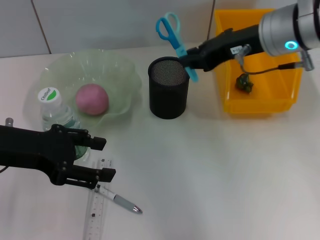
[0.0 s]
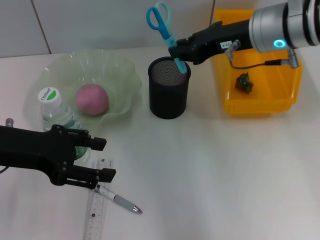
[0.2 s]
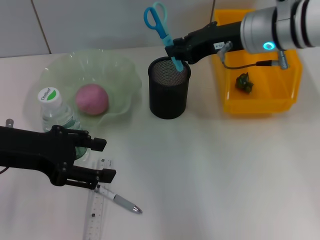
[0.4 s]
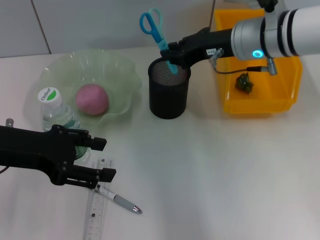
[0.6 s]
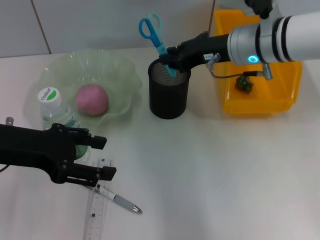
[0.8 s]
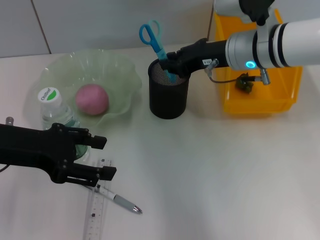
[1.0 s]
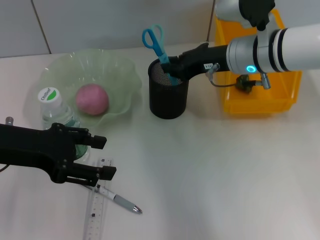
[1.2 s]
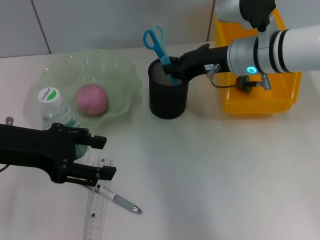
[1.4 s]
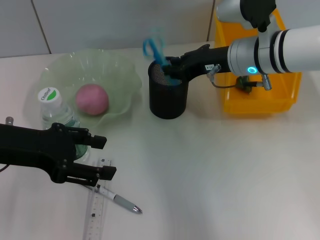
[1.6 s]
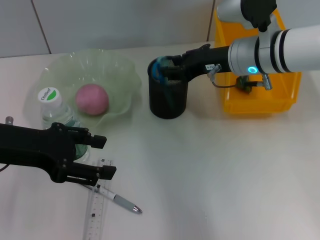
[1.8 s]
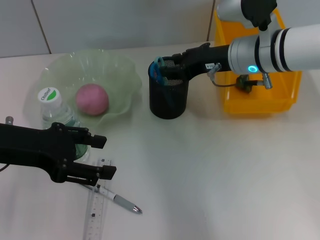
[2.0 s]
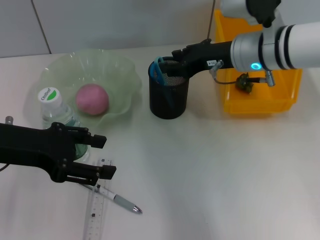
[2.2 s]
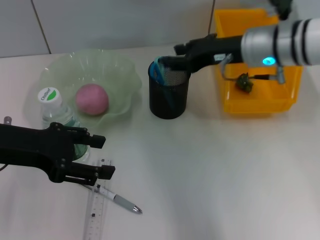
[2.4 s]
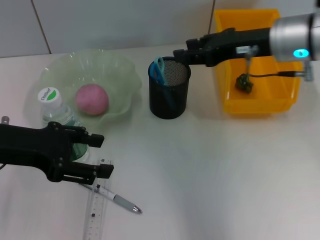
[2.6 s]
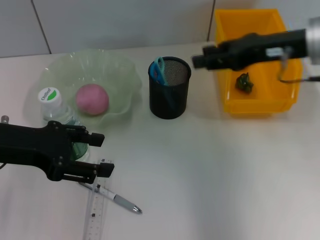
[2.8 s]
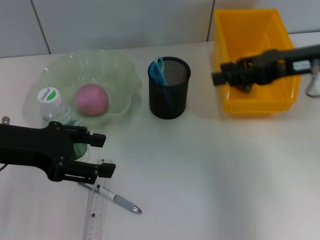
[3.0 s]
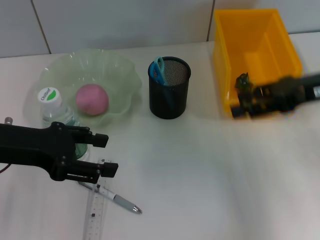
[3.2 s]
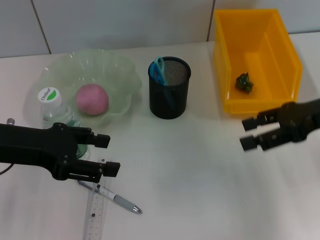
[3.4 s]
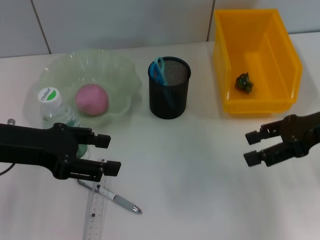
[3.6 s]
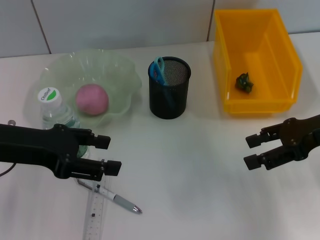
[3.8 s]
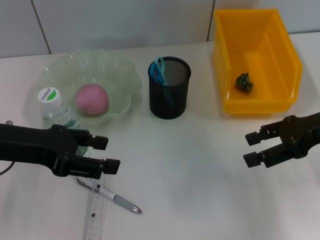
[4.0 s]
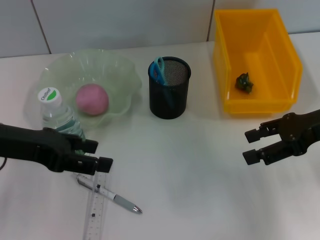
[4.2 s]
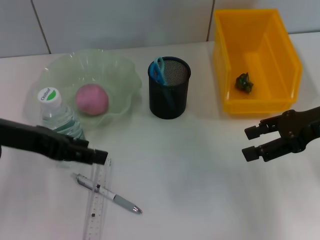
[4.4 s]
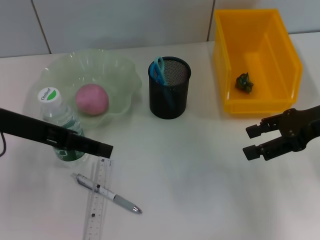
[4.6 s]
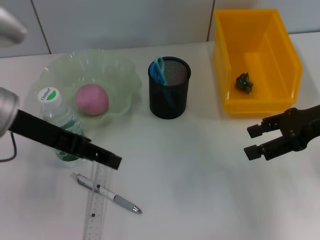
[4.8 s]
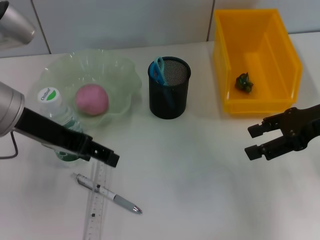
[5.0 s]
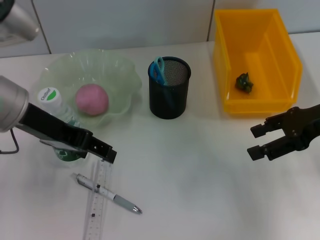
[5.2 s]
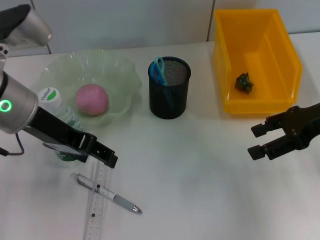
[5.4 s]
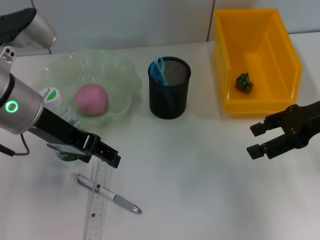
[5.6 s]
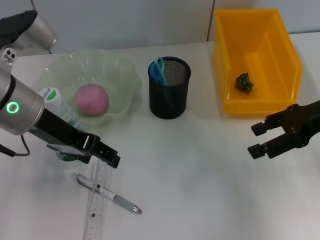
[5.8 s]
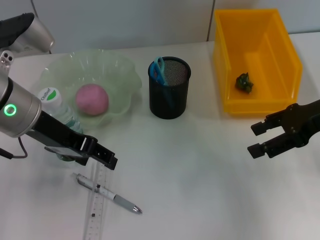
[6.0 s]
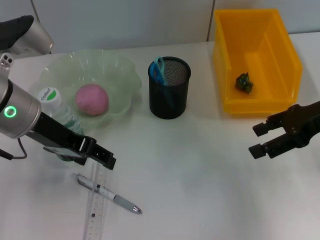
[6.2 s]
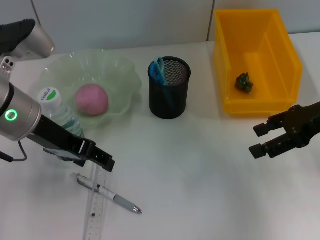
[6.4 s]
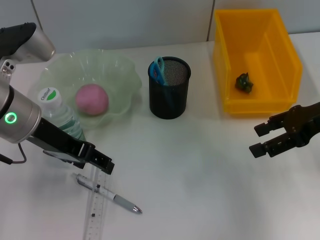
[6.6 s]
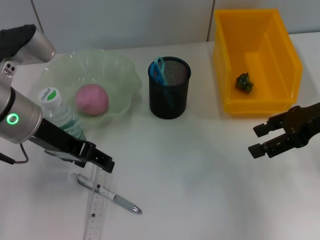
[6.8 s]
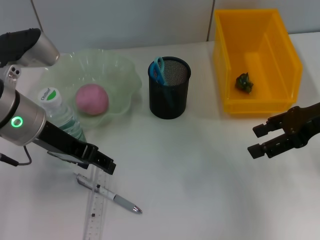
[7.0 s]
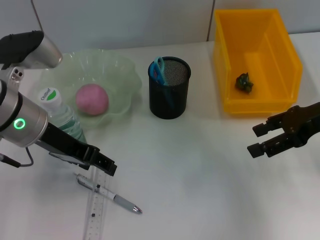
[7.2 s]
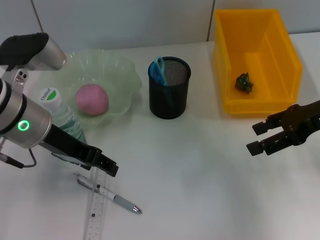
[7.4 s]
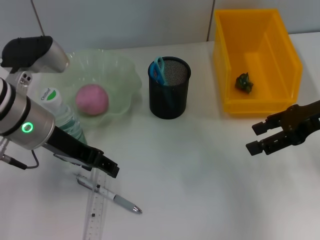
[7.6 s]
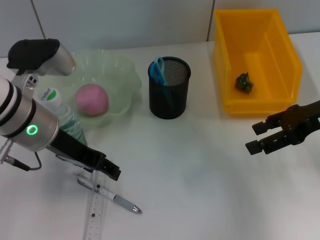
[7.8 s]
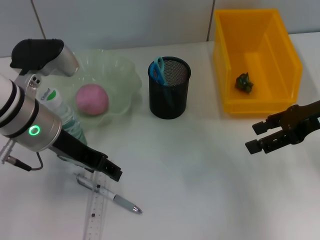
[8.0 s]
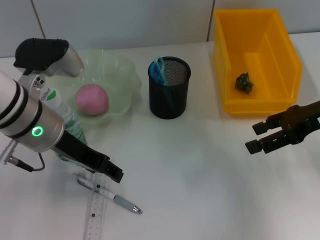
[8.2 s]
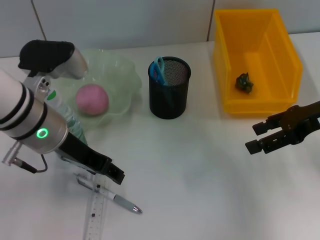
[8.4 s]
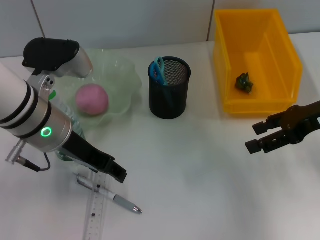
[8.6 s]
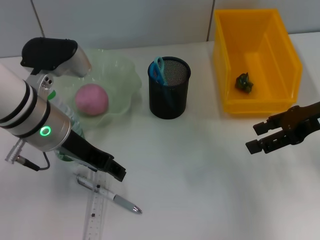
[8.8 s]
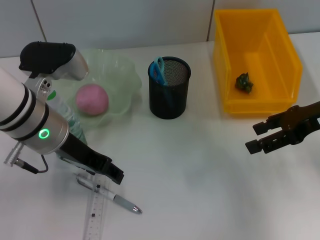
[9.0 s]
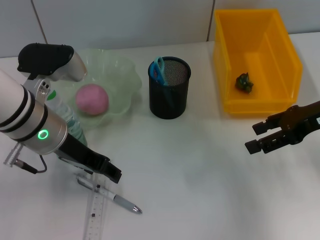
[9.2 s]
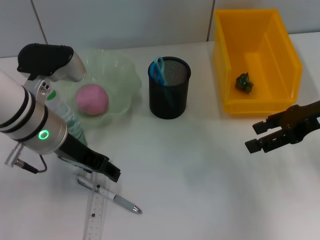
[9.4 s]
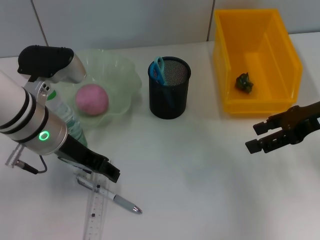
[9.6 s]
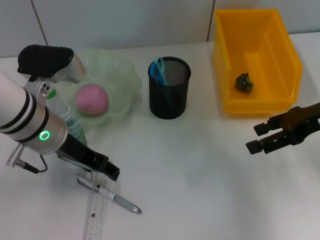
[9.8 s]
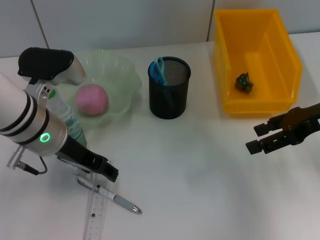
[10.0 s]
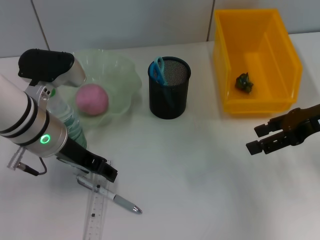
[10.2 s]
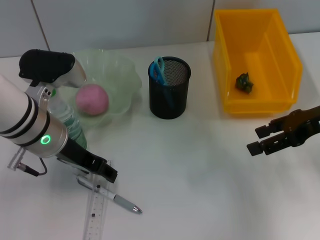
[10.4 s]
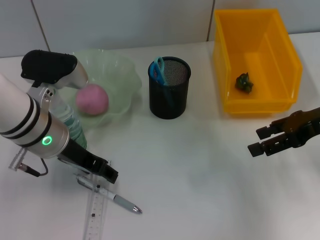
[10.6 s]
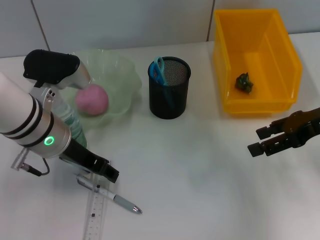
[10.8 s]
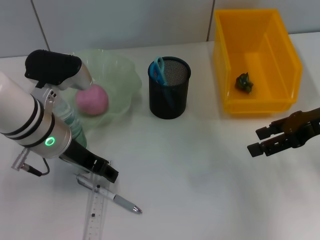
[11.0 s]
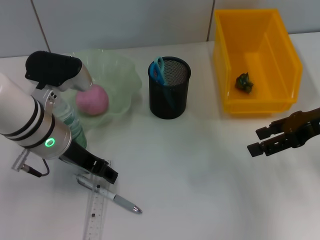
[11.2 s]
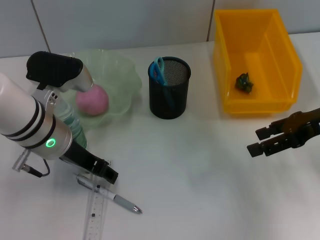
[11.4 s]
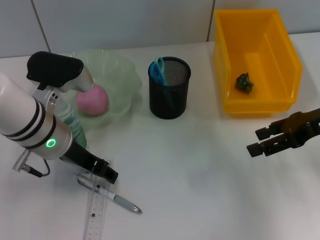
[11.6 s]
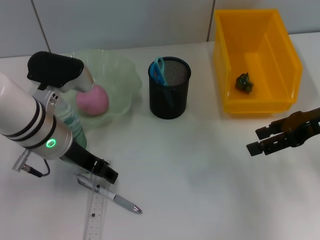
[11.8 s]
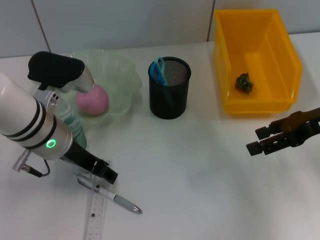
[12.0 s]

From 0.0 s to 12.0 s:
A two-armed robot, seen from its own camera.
From 0.0 s to 1.6 s: The right gripper goes about 5 cm downward.
From 1.6 s to 3.0 s: The right gripper goes roughly 15 cm to the right, backward and upward, and opens its fingers.
From 3.0 s to 4.4 s: The right gripper ends up about 5 cm from where it was, and opens.
From 4.4 s to 6.0 s: The left gripper is displaced to the right by roughly 5 cm.
From 6.0 s to 9.0 s: There are only small adjustments of the grippers.
From 9.0 s to 10.4 s: The grippers stay close to where they were, moving slightly.
From 10.4 s to 12.0 s: The two grippers keep their place.

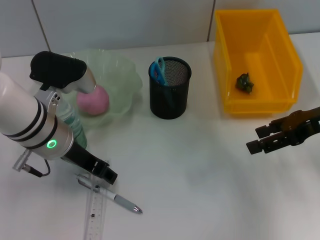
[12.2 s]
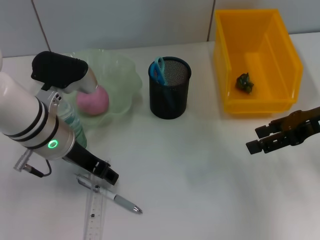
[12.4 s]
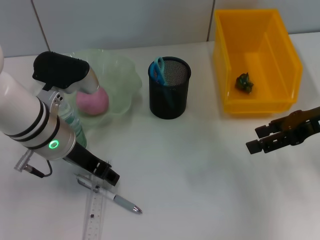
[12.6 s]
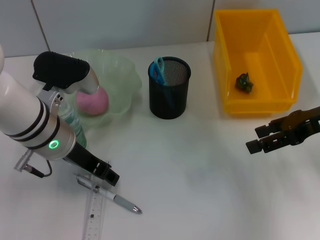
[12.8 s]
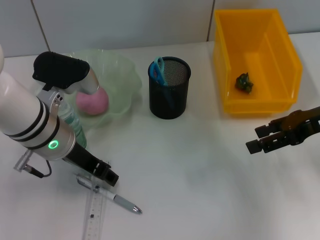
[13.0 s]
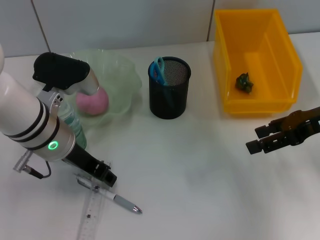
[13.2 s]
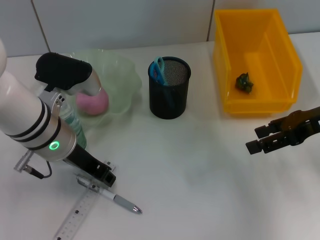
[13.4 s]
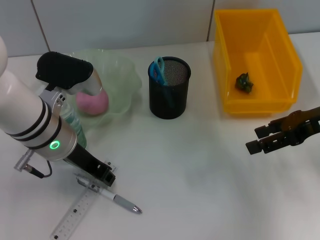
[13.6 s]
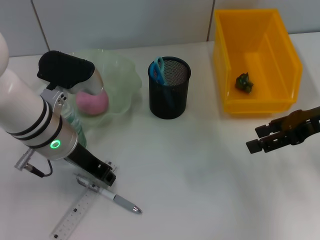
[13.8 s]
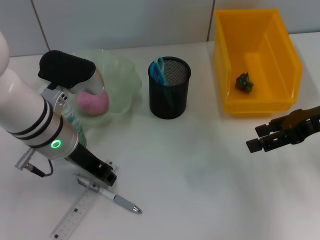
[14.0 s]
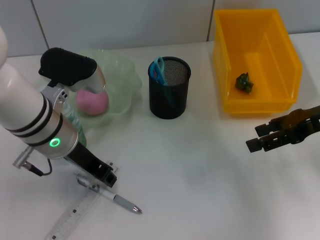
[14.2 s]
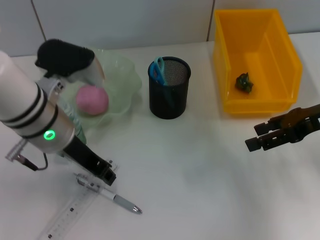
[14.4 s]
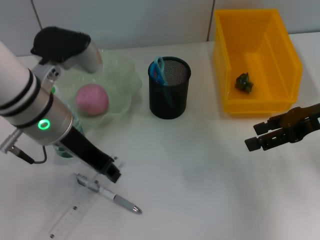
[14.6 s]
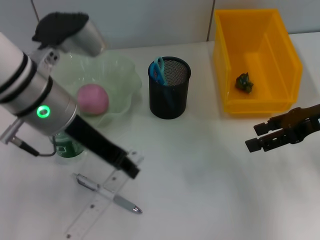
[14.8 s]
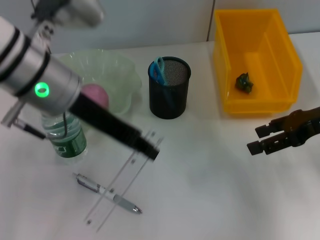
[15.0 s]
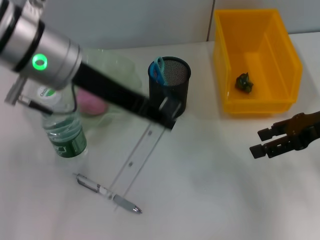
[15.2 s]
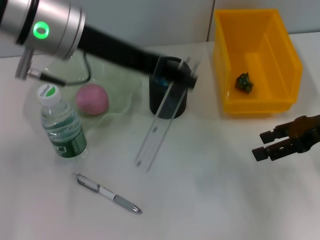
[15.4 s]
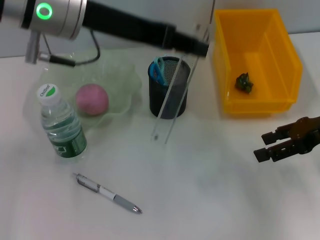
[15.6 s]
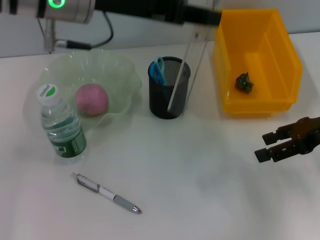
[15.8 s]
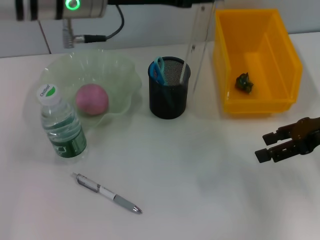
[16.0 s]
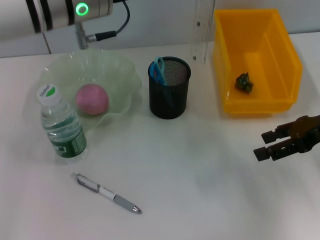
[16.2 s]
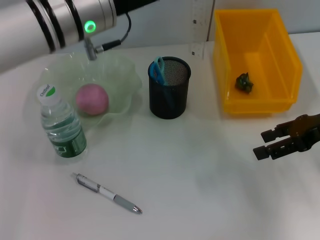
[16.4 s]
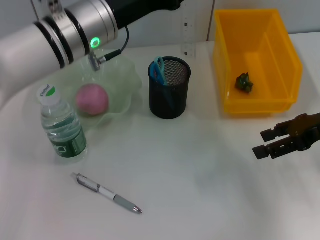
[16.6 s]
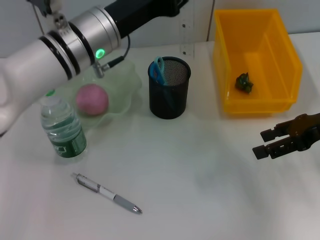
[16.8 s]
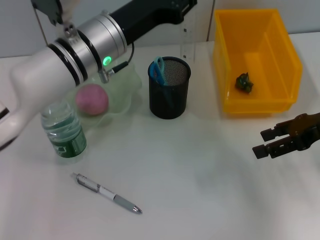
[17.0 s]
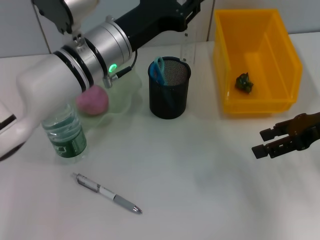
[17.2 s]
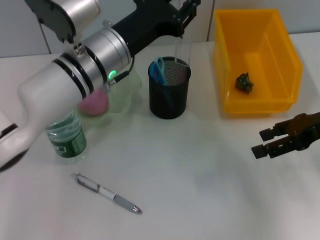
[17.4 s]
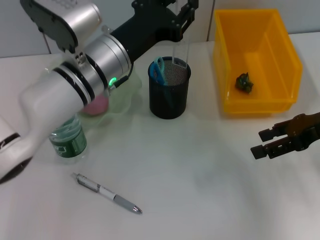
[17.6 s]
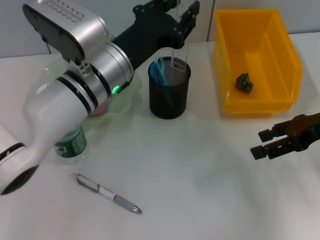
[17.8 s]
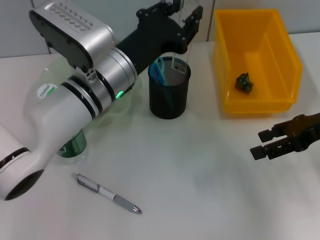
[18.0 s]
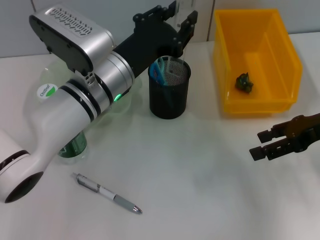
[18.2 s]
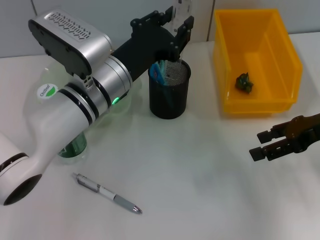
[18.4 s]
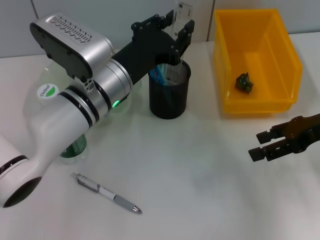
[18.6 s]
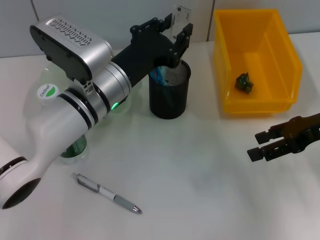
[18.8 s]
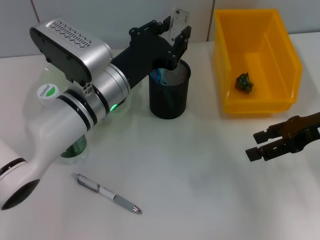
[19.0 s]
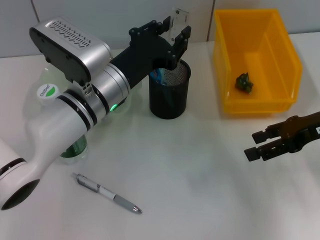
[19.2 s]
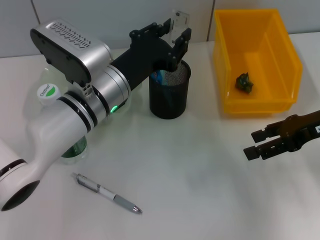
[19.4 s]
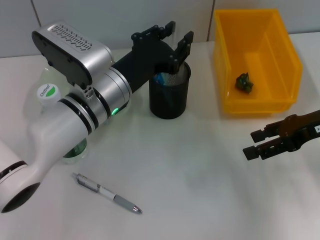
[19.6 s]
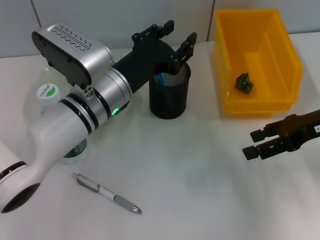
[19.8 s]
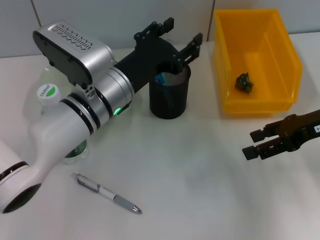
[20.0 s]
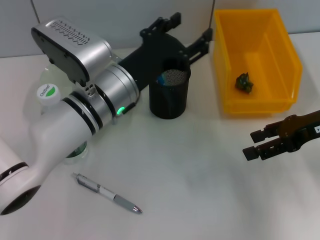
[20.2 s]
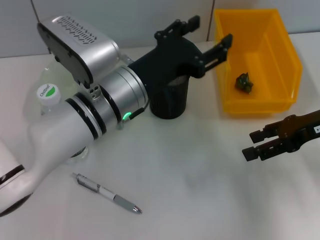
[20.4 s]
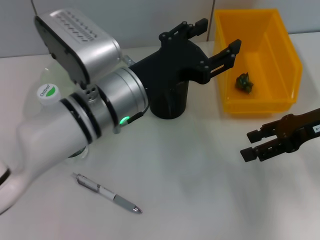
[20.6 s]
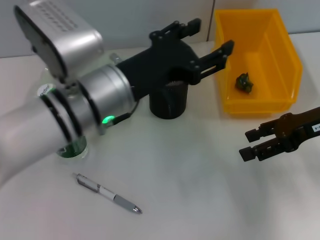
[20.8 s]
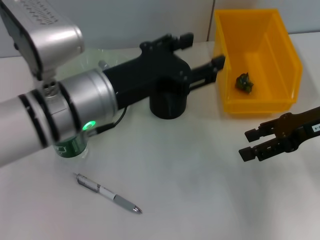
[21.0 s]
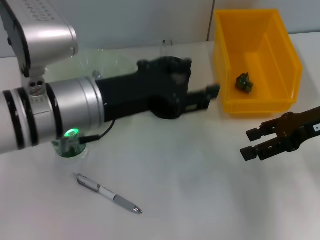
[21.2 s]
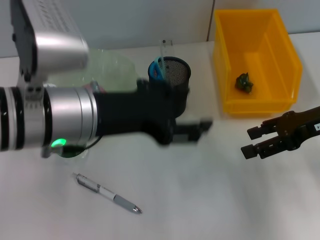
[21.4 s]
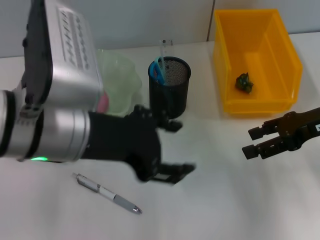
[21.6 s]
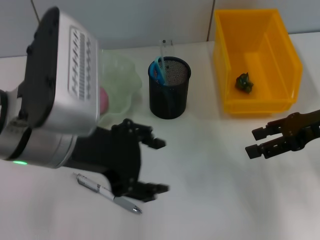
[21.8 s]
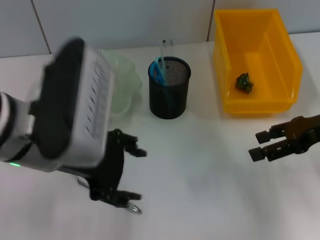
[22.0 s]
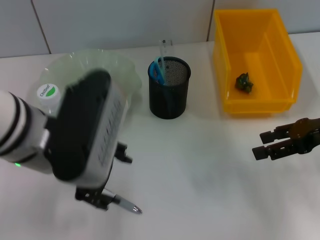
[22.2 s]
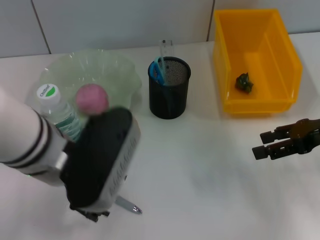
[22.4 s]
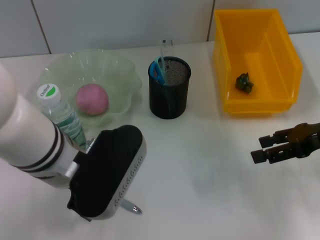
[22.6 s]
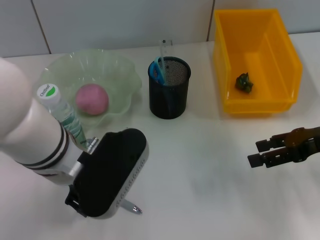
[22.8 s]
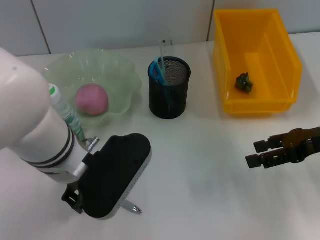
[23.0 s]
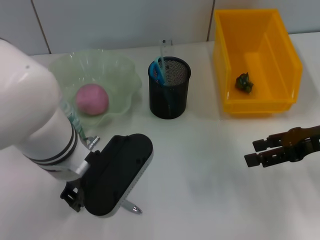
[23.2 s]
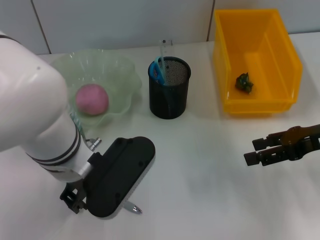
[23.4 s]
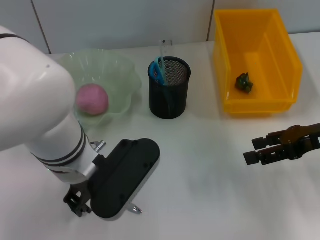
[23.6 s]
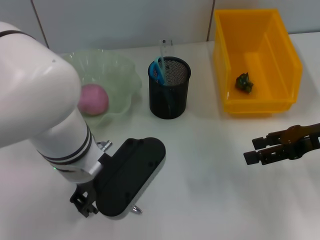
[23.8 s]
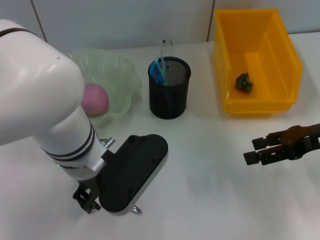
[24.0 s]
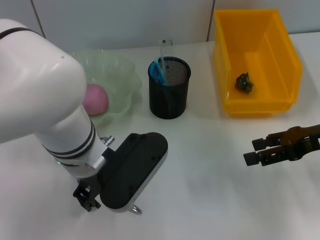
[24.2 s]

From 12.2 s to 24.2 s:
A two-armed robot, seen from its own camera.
Step, from 13.6 s to 19.8 s: Place the ruler into the pen holder with the left hand.
From 12.2 s to 13.8 s: The left gripper closes.
From 13.8 s to 15.2 s: The left gripper heads upward, covering some 15 cm.
From 15.2 s to 16.6 s: The left gripper shifts roughly 5 cm downward.
From 16.6 s to 18.2 s: The left gripper travels downward by approximately 5 cm.
From 18.2 s to 19.8 s: The grippers stay close to where they were, moving slightly.
From 19.8 s to 21.2 s: The left gripper moves upward and backward, some 10 cm, and opens its fingers.
From 22.6 s to 24.2 s: There are only small adjustments of the grippers.
